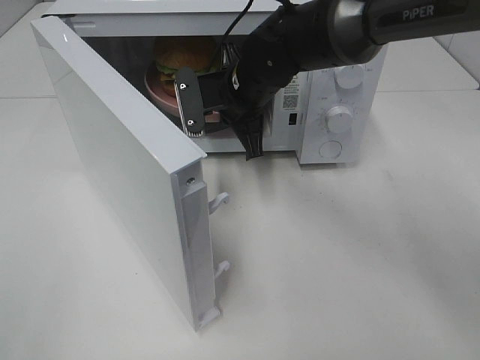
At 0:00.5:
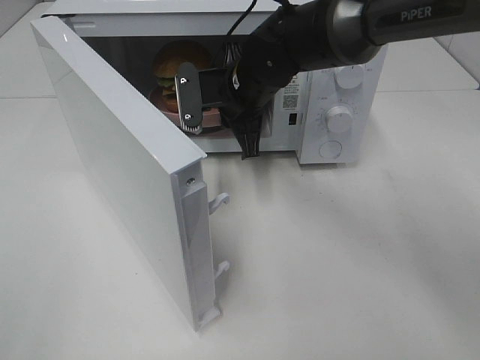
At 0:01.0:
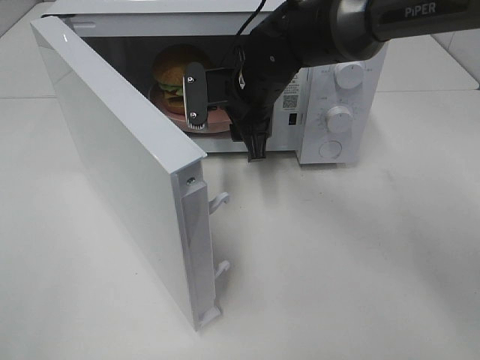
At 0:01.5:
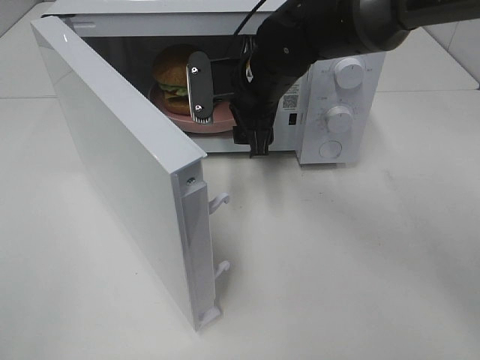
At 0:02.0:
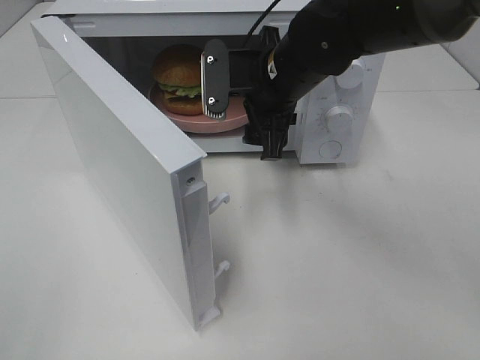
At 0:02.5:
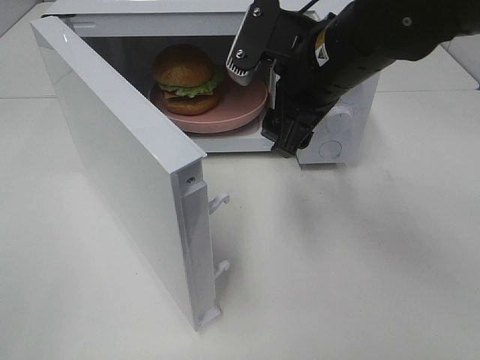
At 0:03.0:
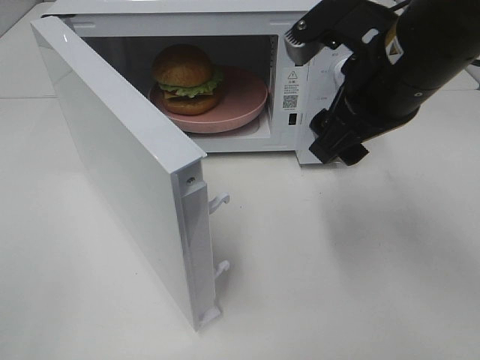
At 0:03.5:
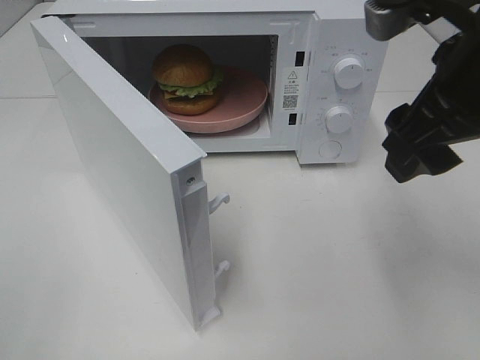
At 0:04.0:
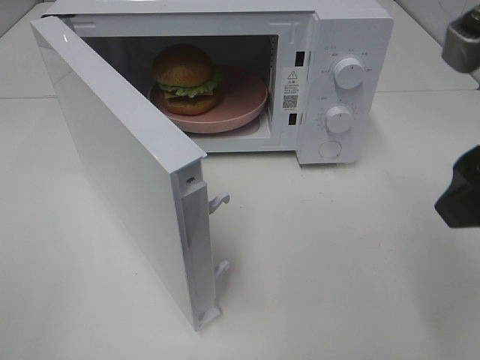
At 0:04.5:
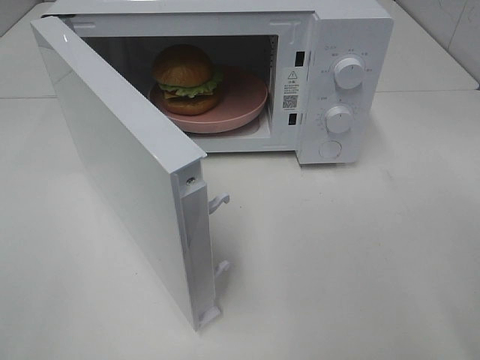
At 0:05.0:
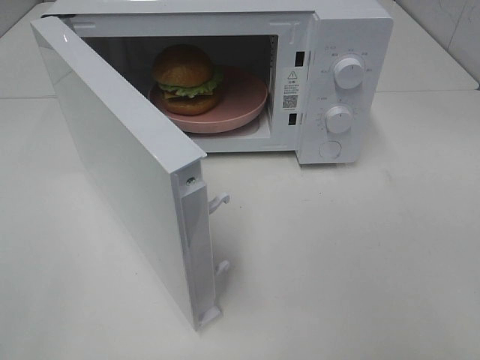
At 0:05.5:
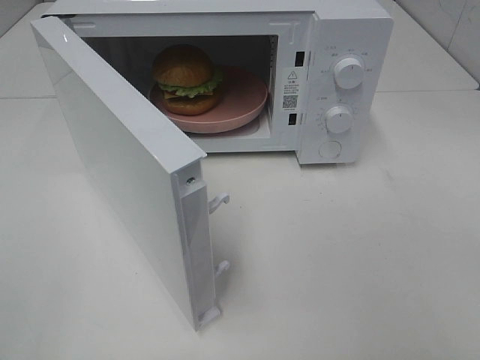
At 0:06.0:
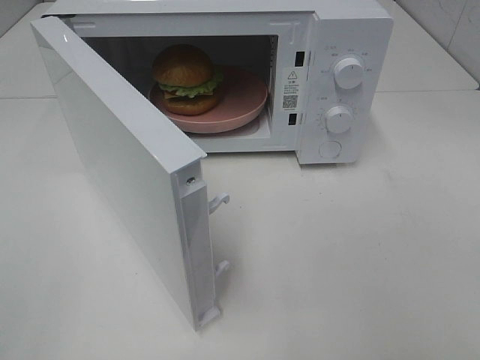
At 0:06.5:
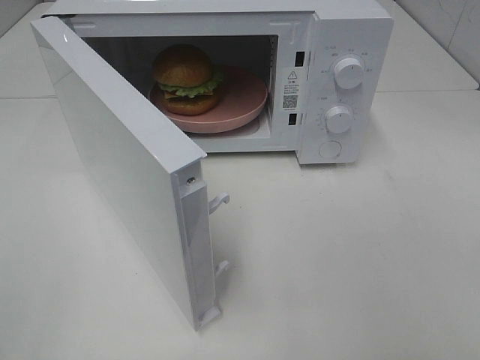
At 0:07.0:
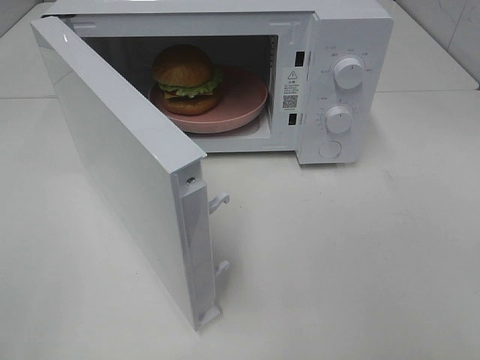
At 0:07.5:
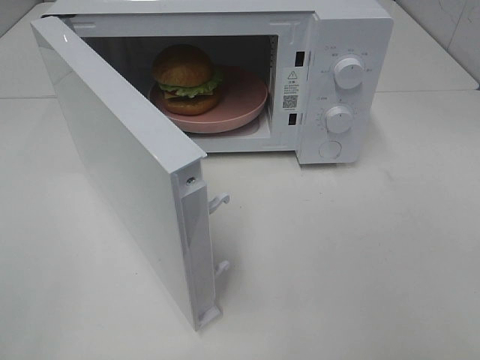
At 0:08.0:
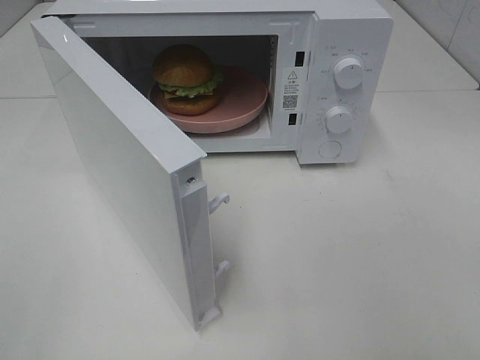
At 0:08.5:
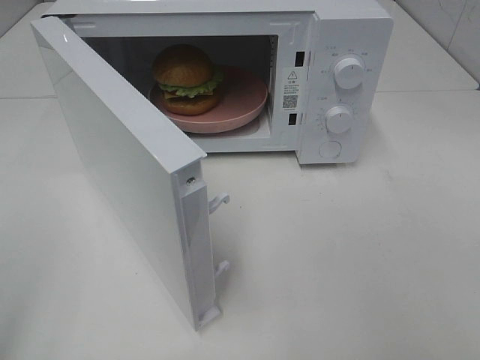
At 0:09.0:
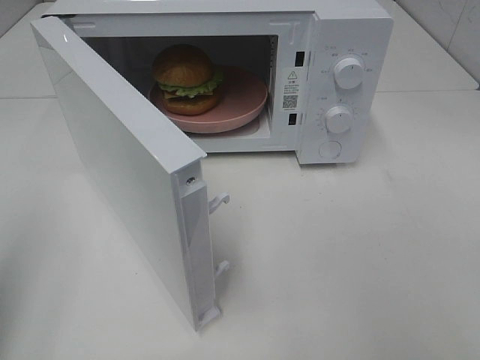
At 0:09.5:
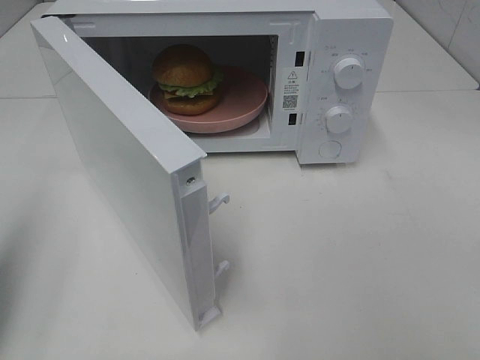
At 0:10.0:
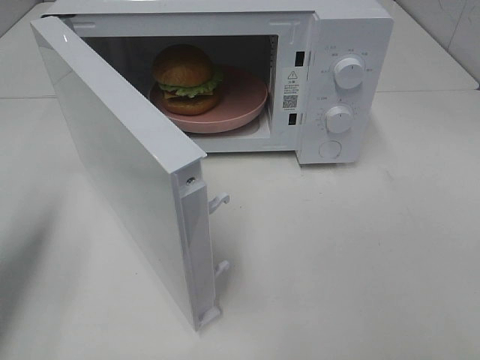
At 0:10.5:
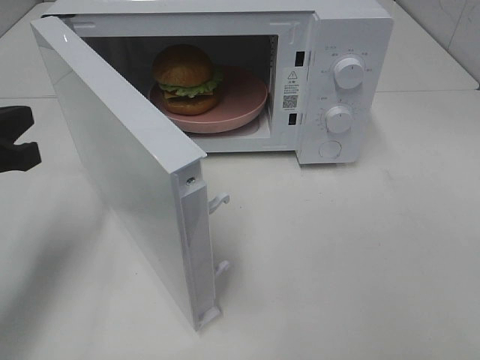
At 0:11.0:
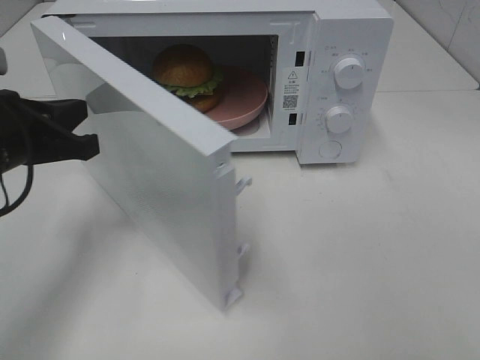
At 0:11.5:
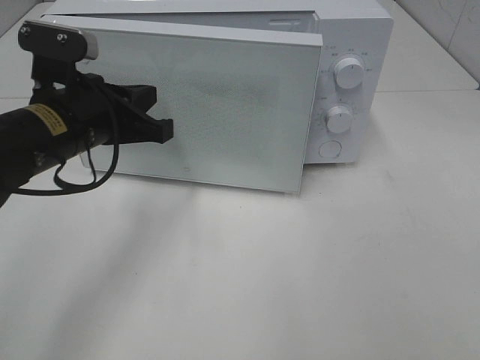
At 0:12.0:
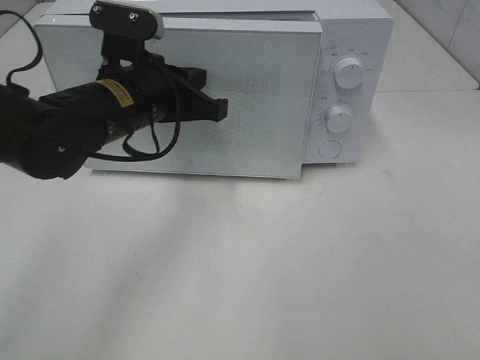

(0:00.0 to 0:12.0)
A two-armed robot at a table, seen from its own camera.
Task of the whole recording: Heat the burger.
0:00.0 - 0:02.0: The right gripper changes place by some 5 cm, and opens.
0:02.0 - 0:04.0: The right gripper moves backward, to the right and upward, roughly 25 cm.
0:04.0 - 0:06.0: The right gripper moves backward and to the right, some 20 cm.
0:06.0 - 0:08.0: Both grippers stay put.
0:08.0 - 0:10.0: The left gripper travels forward by approximately 20 cm, and closes its fingers.
0:10.0 - 0:12.0: The left gripper heads to the right and forward, covering roughly 25 cm.

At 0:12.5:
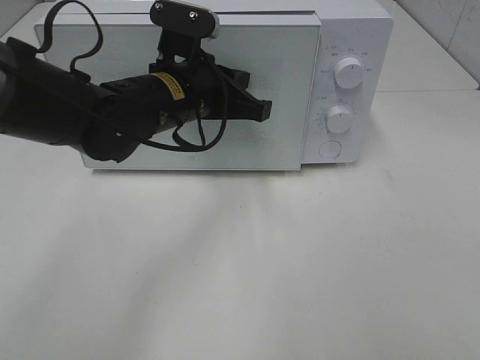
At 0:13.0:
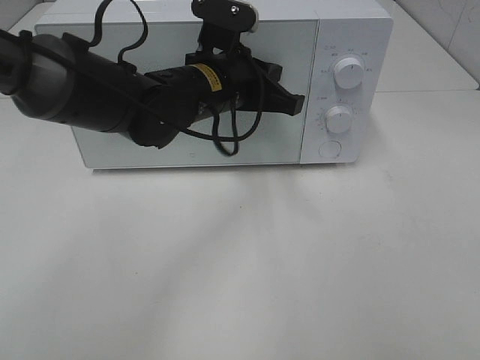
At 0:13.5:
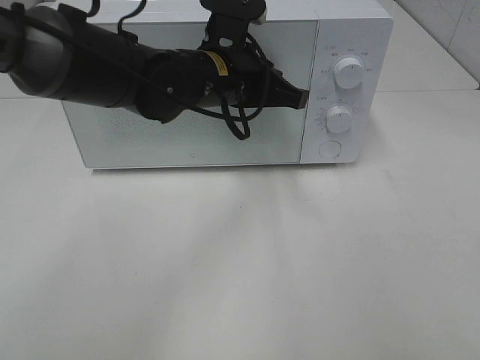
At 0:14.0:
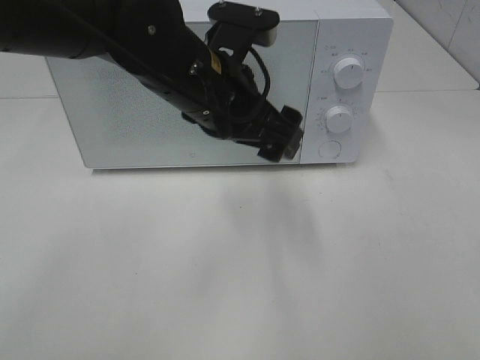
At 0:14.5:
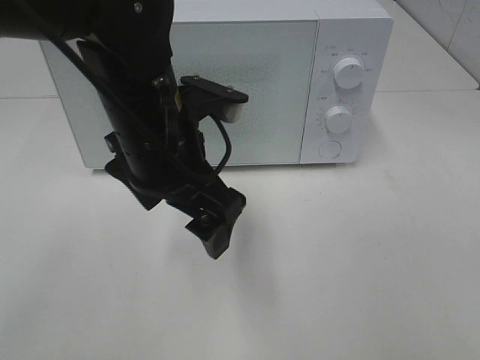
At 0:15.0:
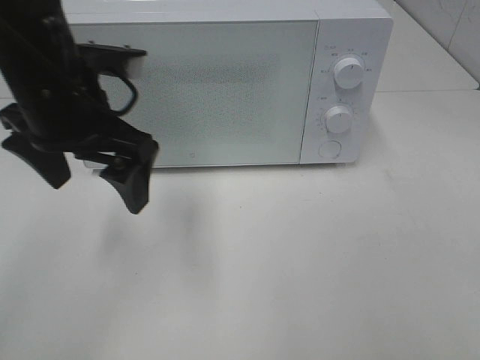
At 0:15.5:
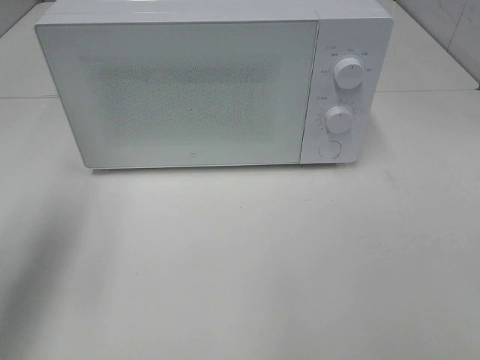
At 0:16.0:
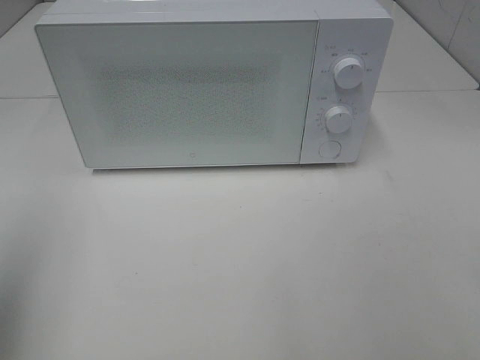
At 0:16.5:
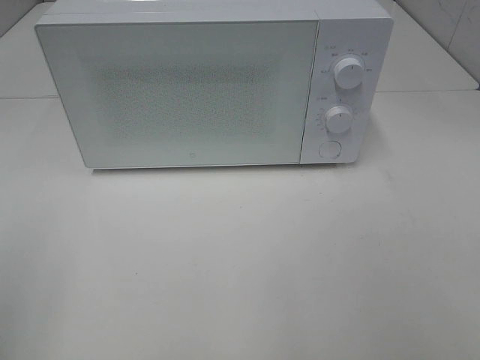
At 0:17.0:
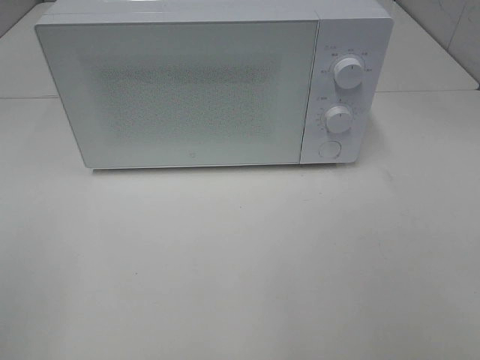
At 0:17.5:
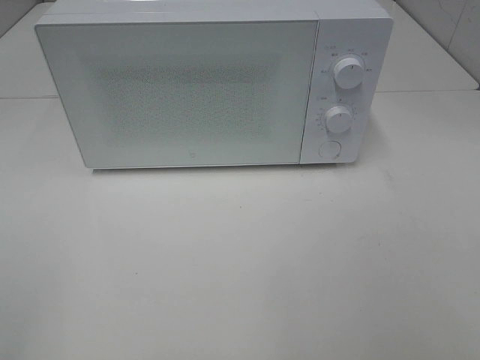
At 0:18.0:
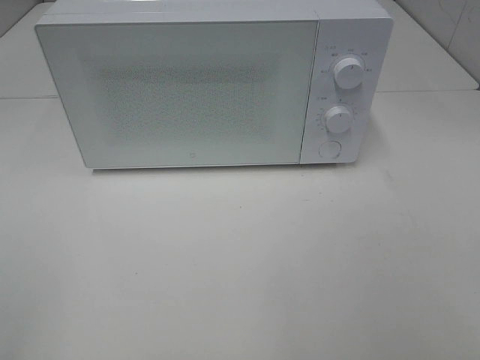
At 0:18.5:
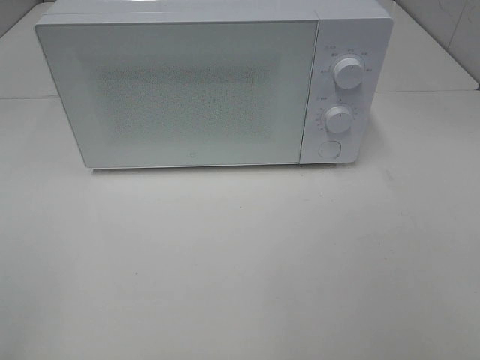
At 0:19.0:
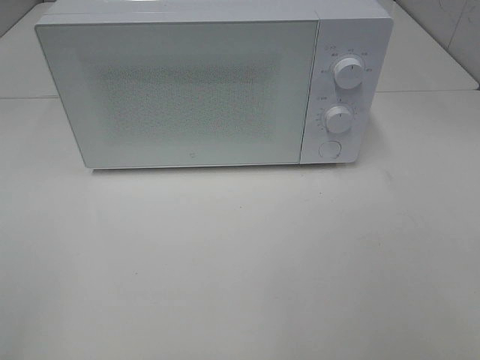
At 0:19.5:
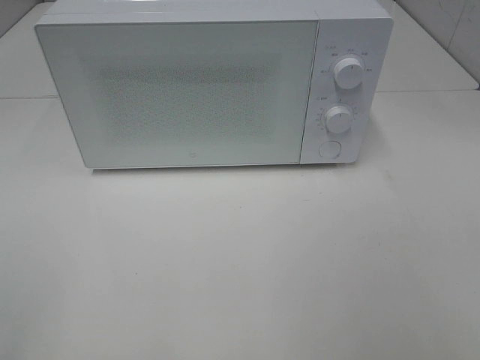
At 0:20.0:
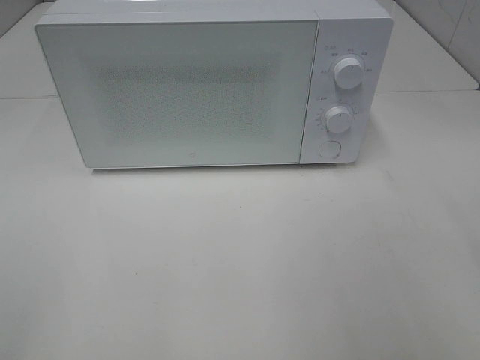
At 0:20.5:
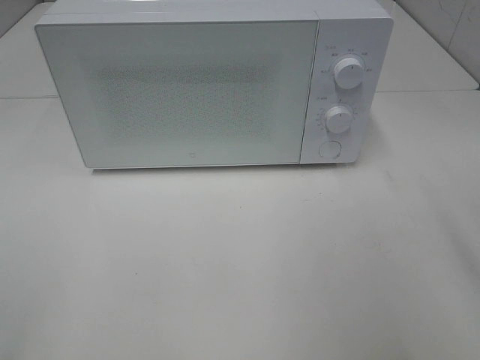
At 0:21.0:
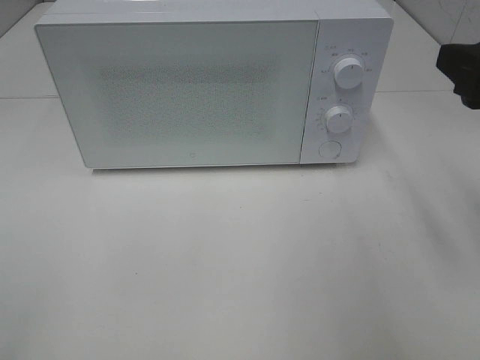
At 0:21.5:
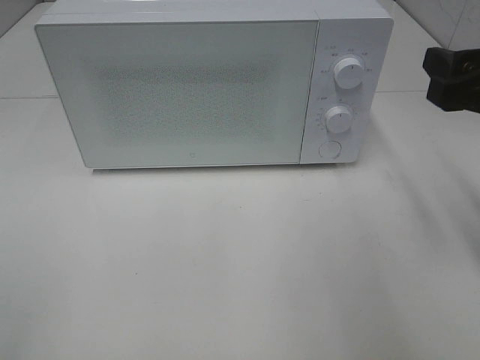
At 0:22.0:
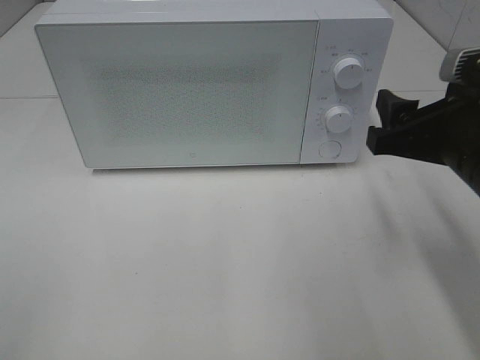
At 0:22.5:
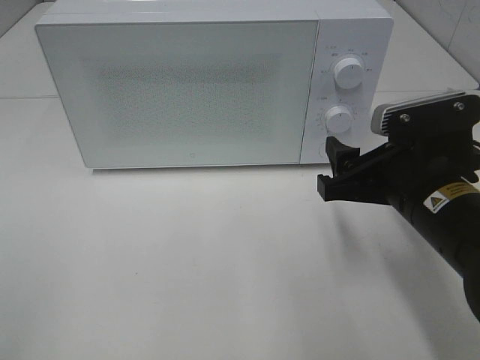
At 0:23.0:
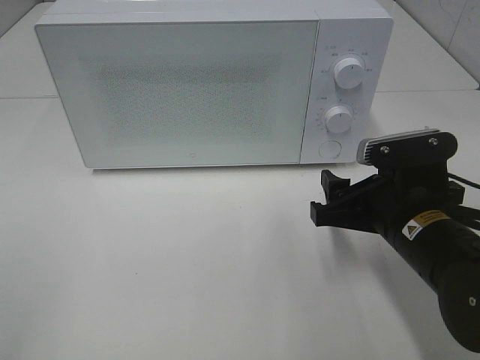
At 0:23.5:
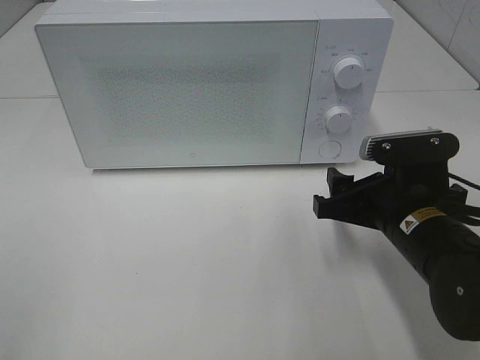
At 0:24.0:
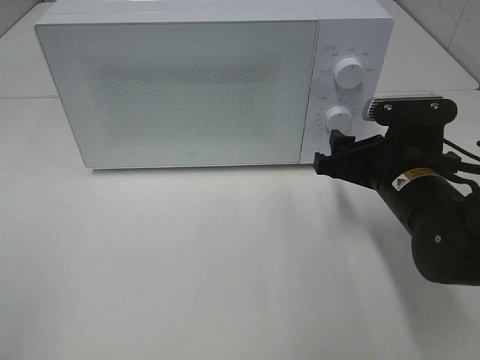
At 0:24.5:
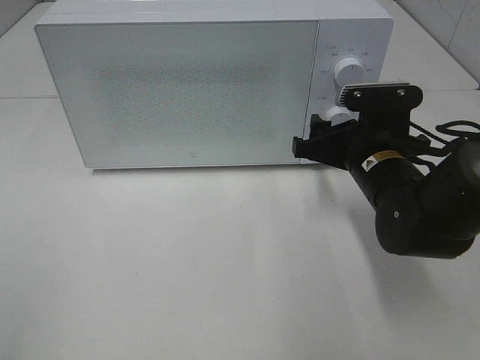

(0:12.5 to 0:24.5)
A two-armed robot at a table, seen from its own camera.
Task of the whole recording: Heat the burger.
0:12.5 - 0:14.5: The left gripper moves backward, about 10 cm, and opens.
0:14.5 - 0:16.5: The left gripper goes approximately 35 cm to the left and backward.
0:20.5 - 0:22.5: The right gripper moves downward, to the left and forward, roughly 20 cm.
0:22.5 - 0:24.5: The right gripper shifts some 10 cm forward.

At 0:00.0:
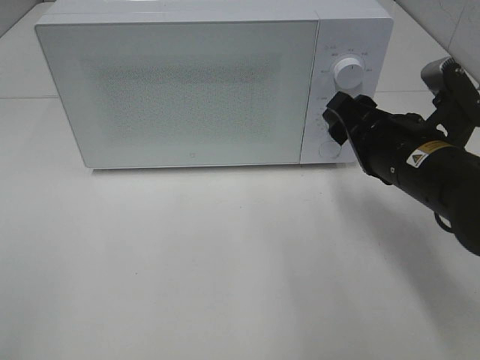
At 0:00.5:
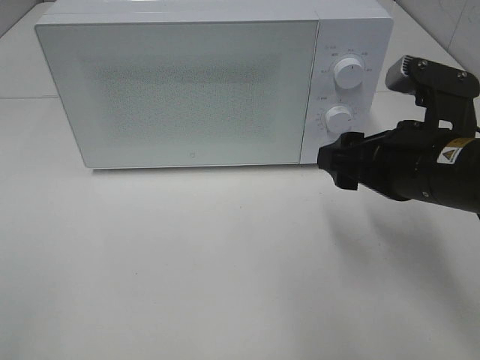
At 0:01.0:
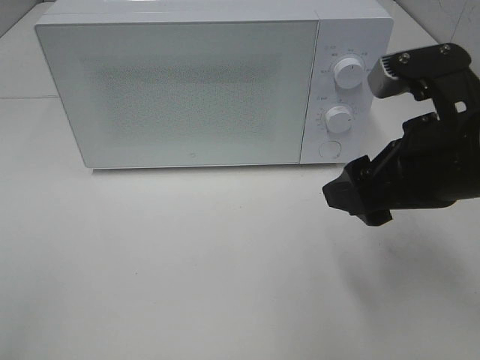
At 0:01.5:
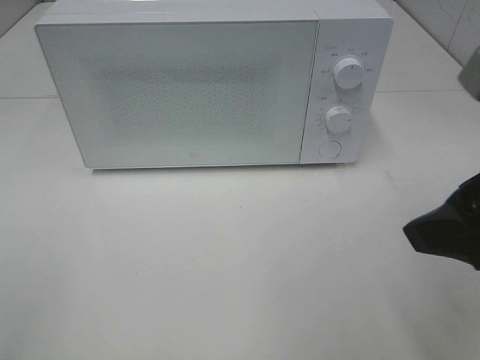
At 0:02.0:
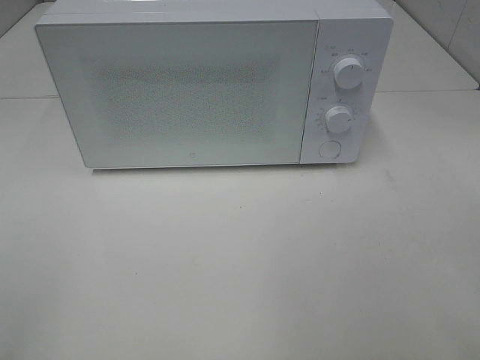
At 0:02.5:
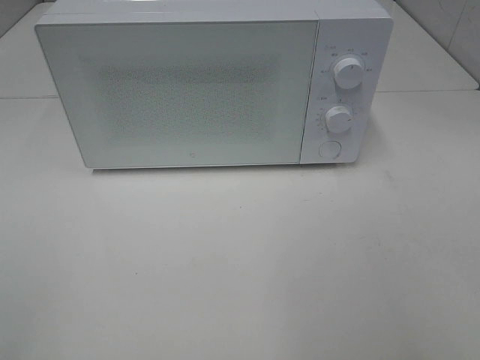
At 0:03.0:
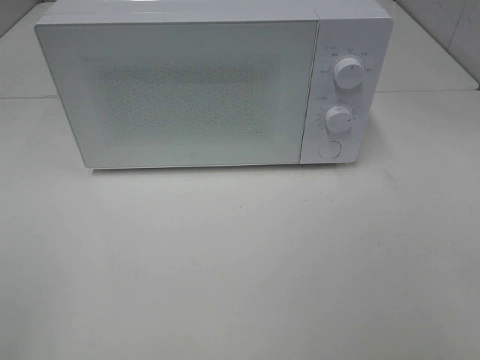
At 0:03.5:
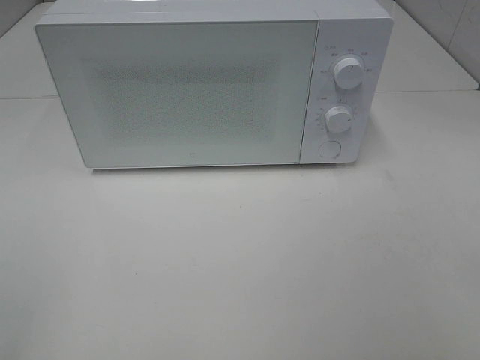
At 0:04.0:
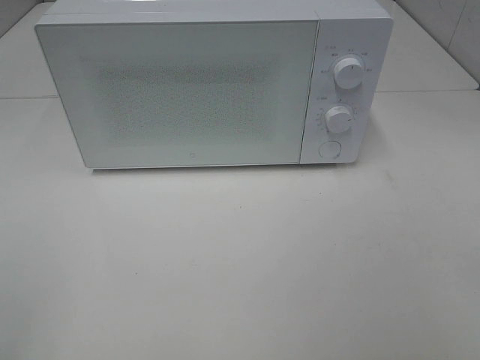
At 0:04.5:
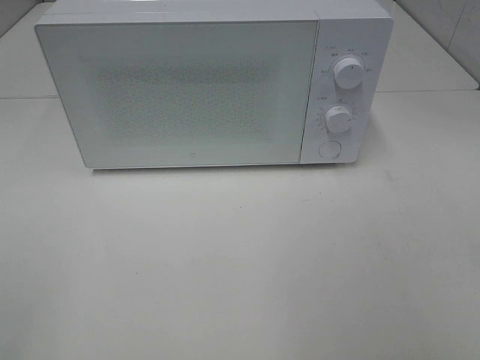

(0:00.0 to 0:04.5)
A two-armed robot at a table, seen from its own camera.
Task of the whole recording: Heat the burger.
0:00.0 - 0:02.0: The right gripper goes roughly 25 cm backward and upward.
